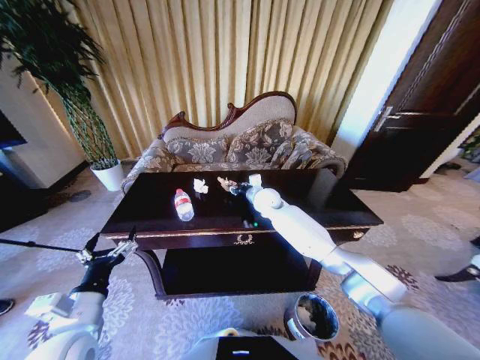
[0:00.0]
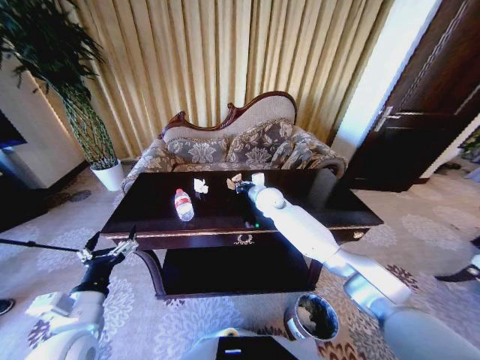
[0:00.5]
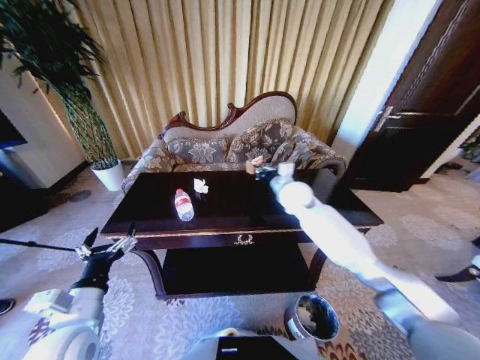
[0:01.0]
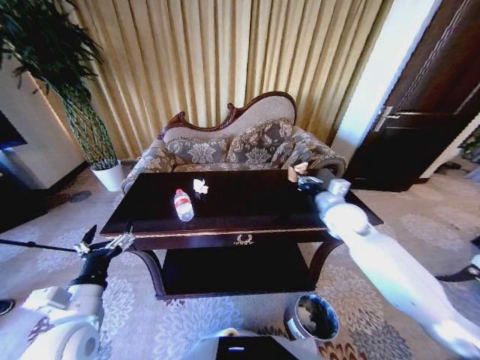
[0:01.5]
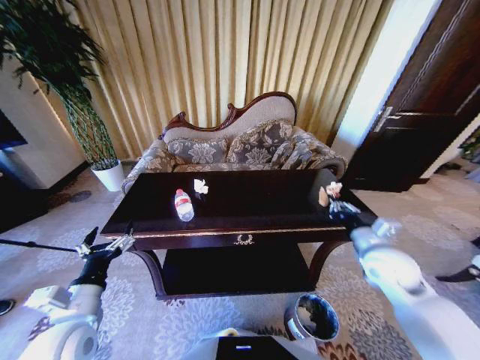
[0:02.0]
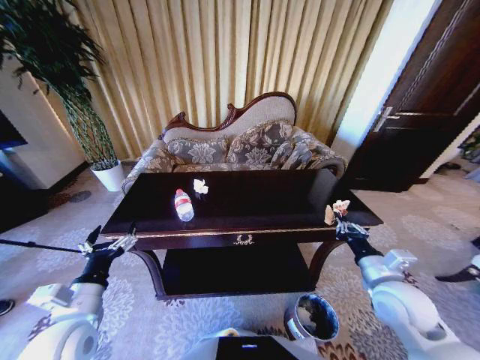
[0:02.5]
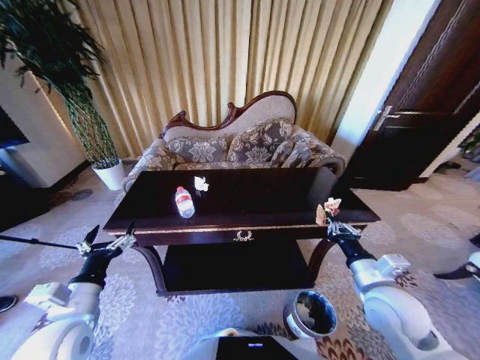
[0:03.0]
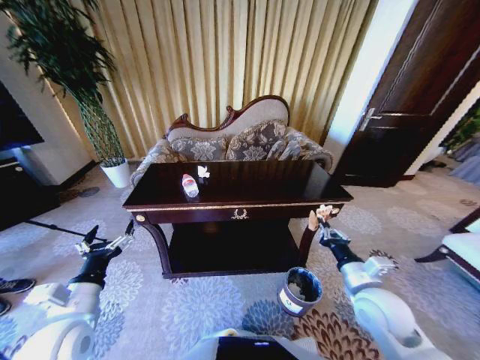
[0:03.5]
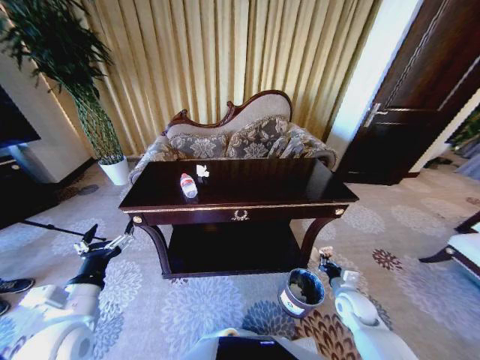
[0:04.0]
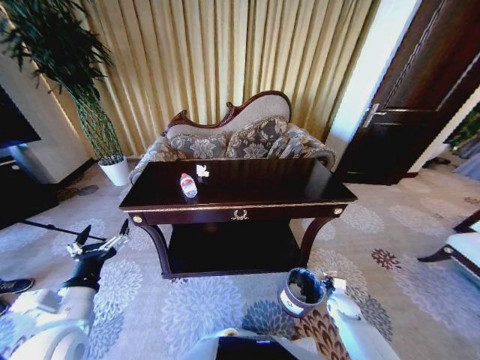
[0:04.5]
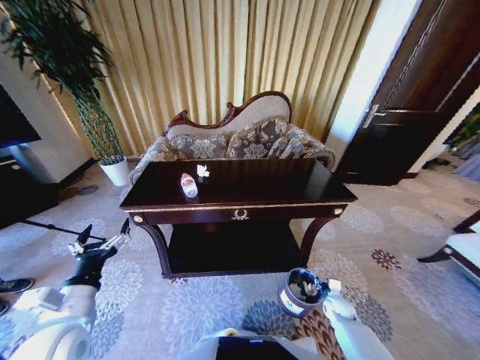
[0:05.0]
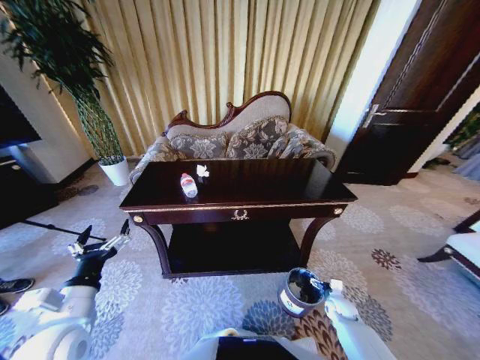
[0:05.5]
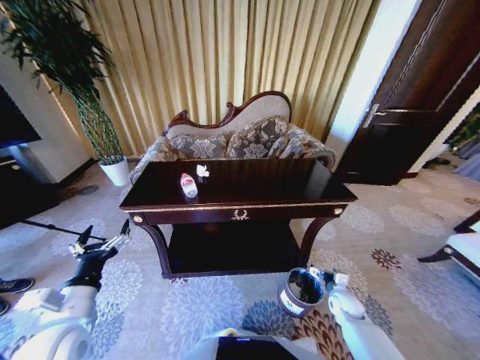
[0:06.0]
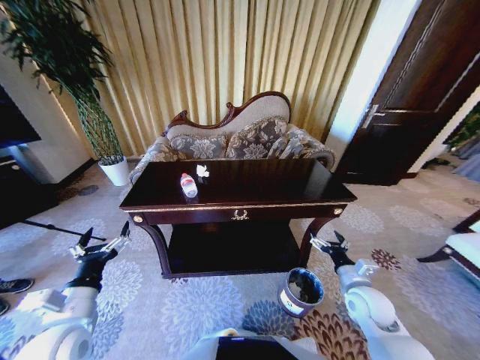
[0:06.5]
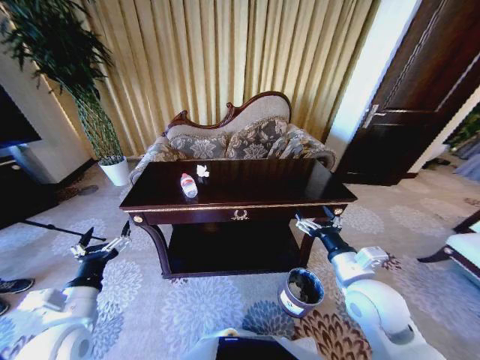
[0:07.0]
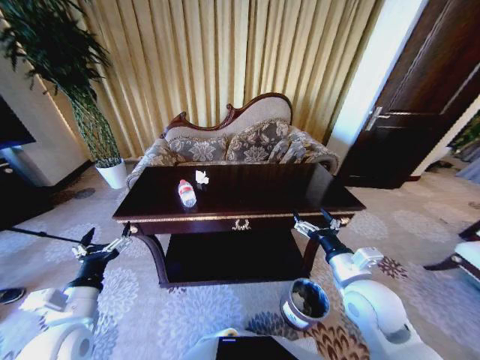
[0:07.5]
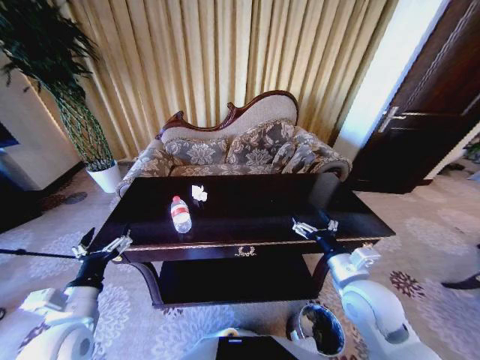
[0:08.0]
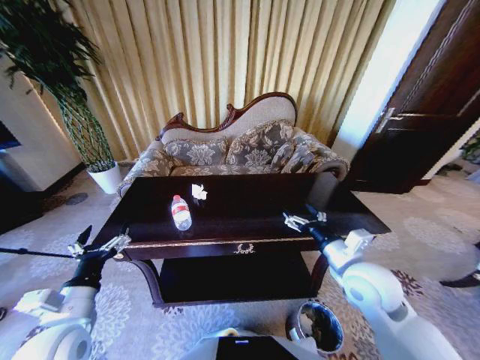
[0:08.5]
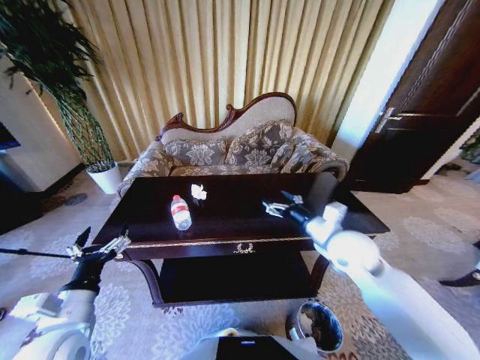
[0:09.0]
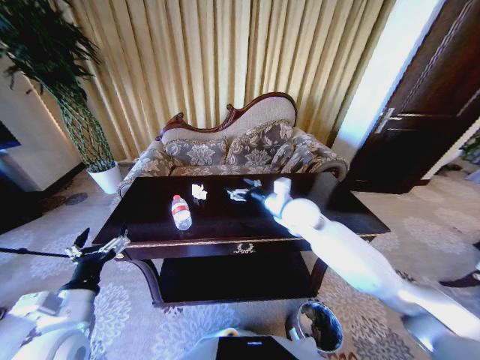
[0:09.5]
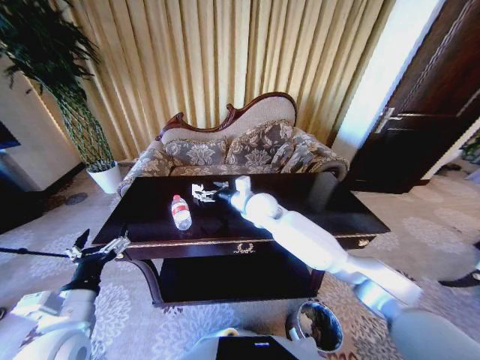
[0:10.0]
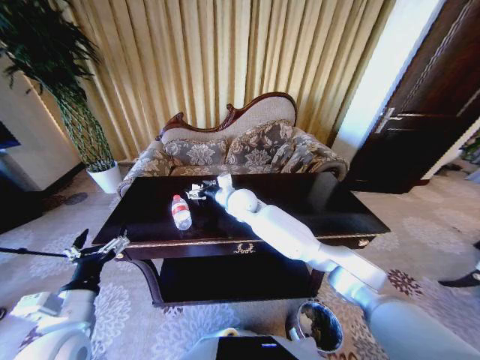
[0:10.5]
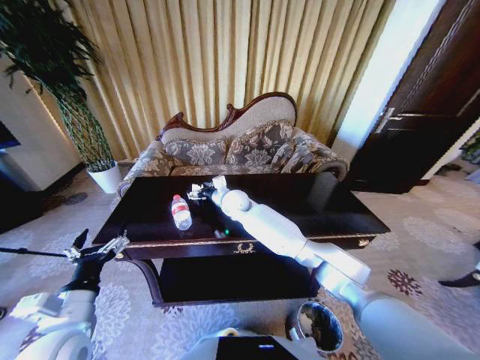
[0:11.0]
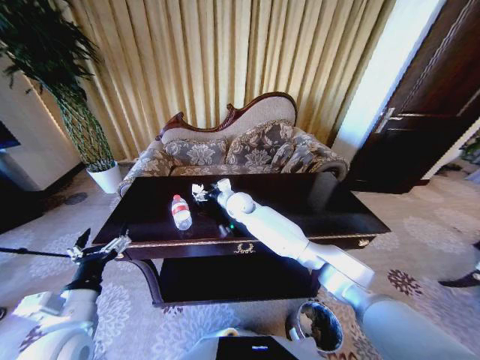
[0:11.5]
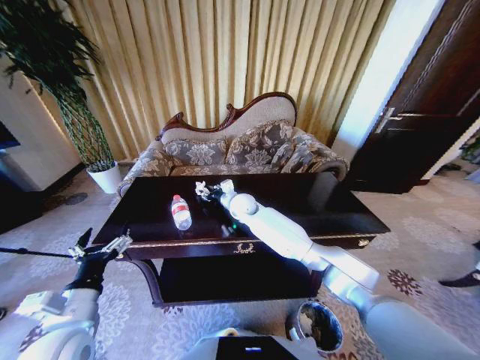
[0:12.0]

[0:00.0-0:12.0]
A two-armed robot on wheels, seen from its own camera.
Task of the whole recording: Move to the front of the table and place the trash on the table into the trash bin.
0:00.0 to 0:02.0: The right gripper moves backward and to the right, roughly 35 cm, and closes its fingers.
0:02.0 to 0:04.0: The right gripper heads downward, covering approximately 20 cm.
0:04.0 to 0:06.0: The right gripper shifts about 5 cm downward, and opens.
0:06.0 to 0:08.0: The right gripper is displaced upward and to the left by some 30 cm.
0:08.0 to 0:10.0: The right gripper heads forward and to the left, covering roughly 30 cm.
0:10.0 to 0:12.0: The right gripper shifts roughly 10 cm forward and downward, and closes.

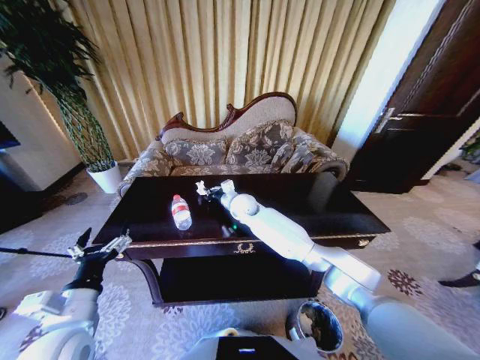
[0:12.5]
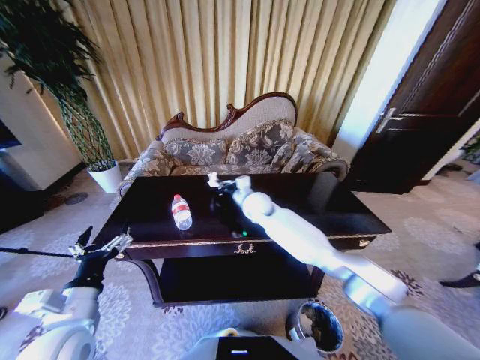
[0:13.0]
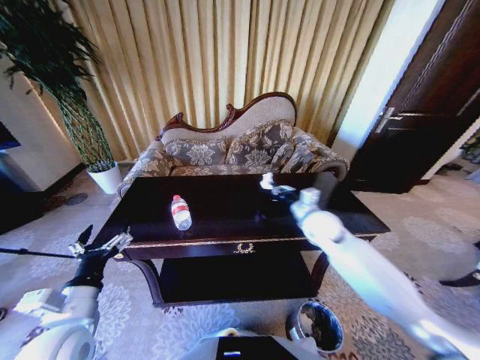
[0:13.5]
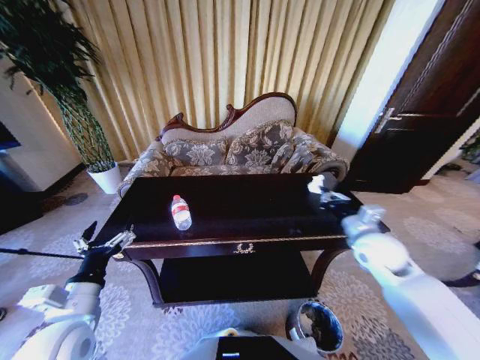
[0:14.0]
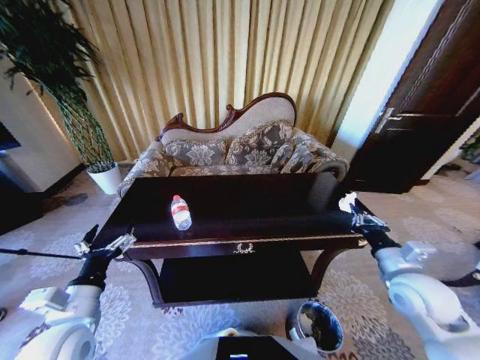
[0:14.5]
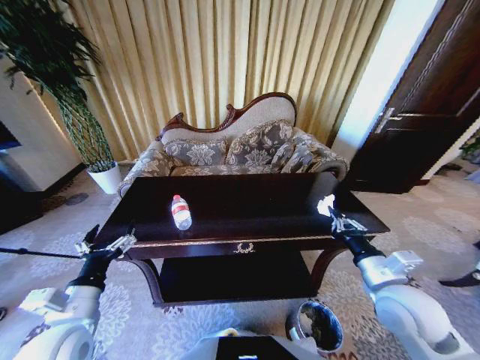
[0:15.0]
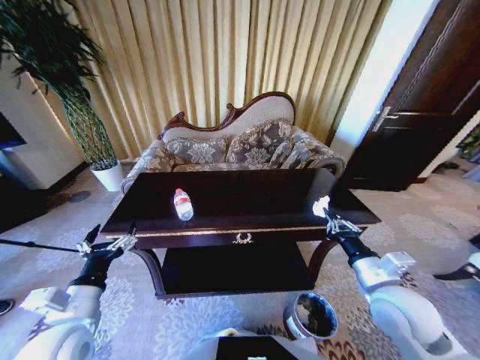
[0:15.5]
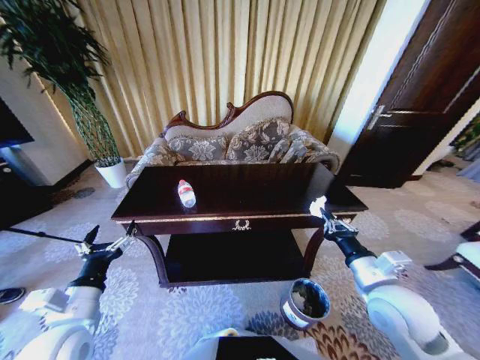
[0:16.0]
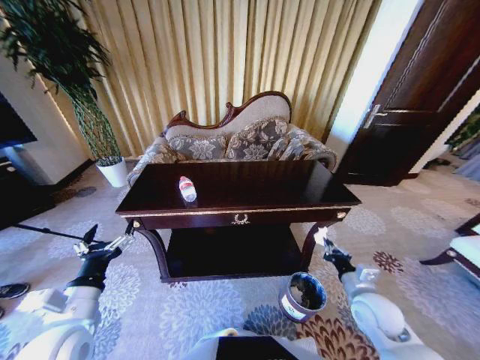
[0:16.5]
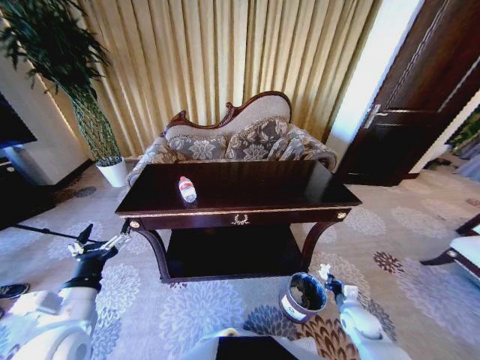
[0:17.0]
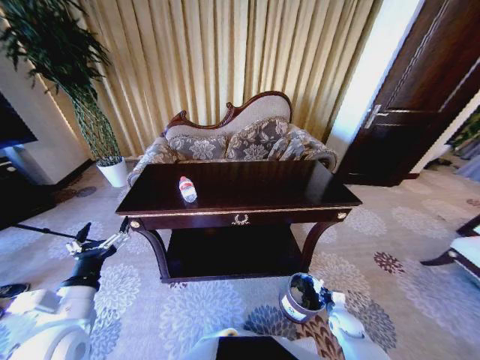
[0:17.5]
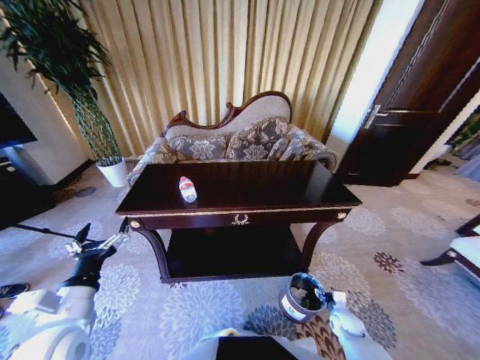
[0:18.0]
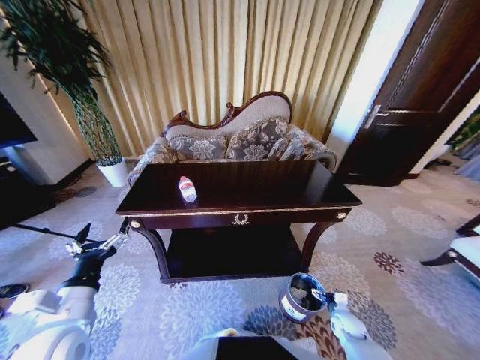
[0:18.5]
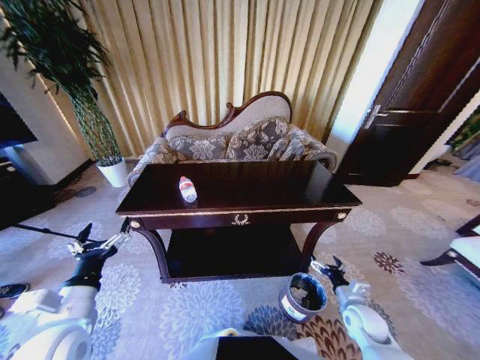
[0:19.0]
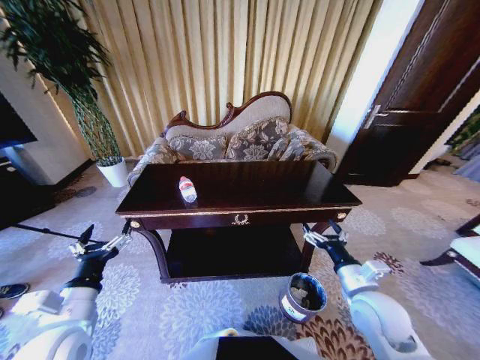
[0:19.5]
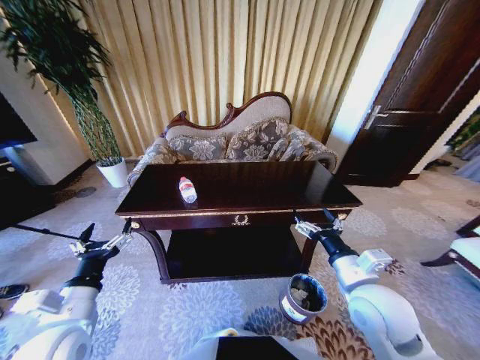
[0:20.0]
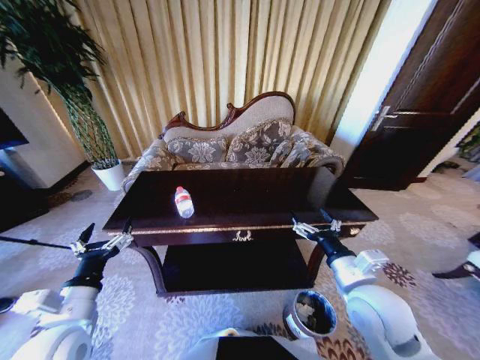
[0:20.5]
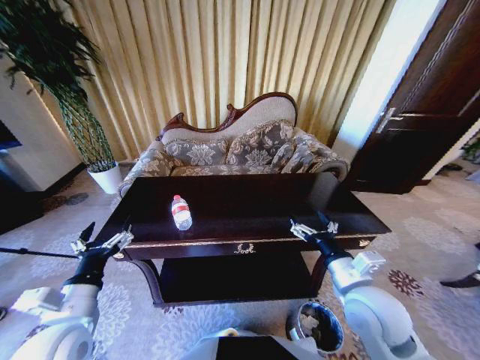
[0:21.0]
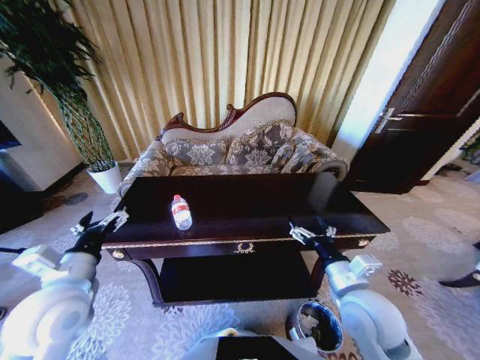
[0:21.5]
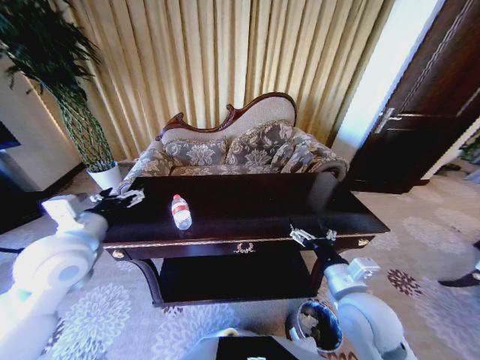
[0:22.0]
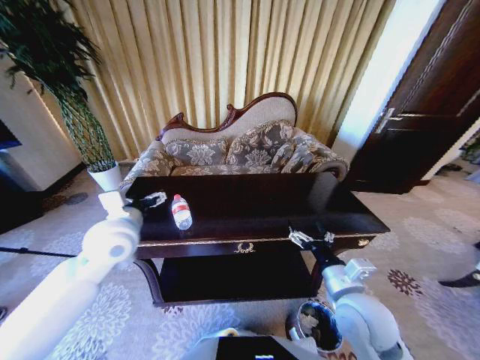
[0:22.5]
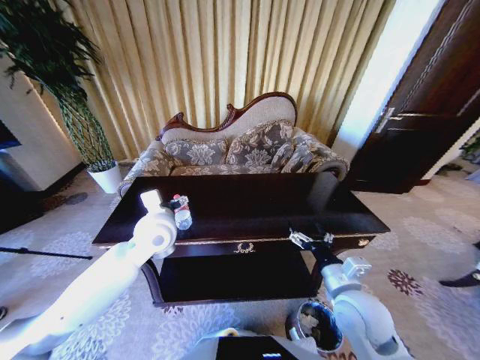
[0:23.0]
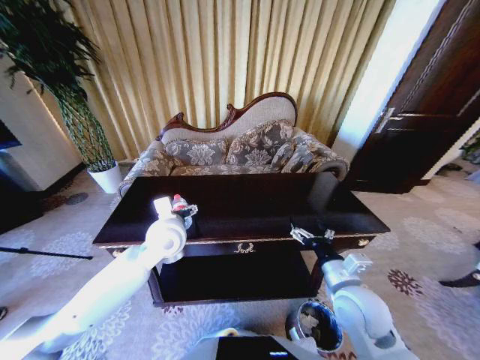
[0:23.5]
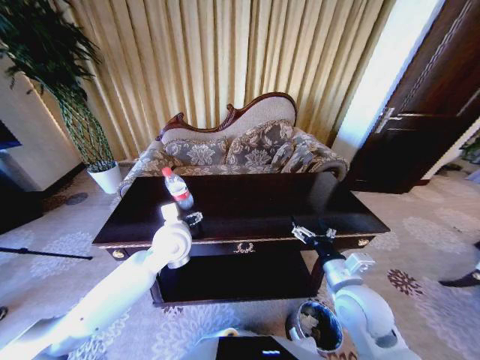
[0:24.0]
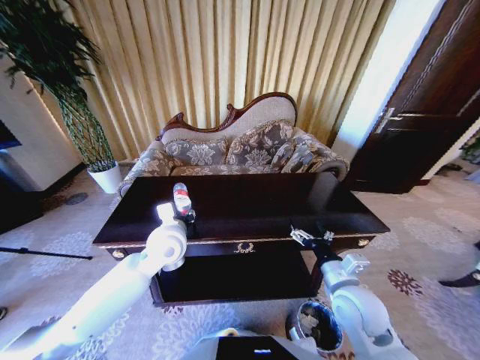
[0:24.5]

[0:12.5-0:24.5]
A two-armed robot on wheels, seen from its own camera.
Task of the whole recording: Move to the front of the table and place the trash on the table into the trash bin.
0:12.5 to 0:14.5: The right gripper moves to the right and backward, about 50 cm.
0:14.5 to 0:16.5: The right gripper is displaced downward by approximately 10 cm.
0:16.5 to 0:18.5: The right gripper travels downward by about 25 cm, and opens up.
0:18.5 to 0:20.5: The right gripper moves upward, approximately 35 cm.
0:20.5 to 0:22.5: The left gripper heads forward, covering about 20 cm.
0:22.5 to 0:24.5: The left gripper heads to the right and downward, covering roughly 10 cm, and closes.

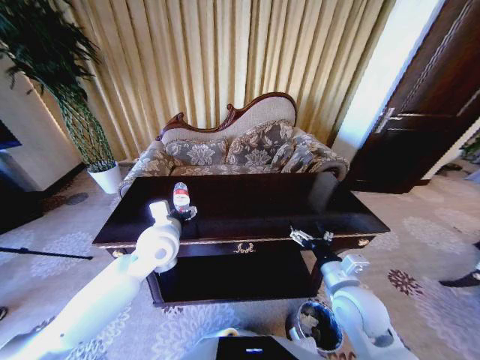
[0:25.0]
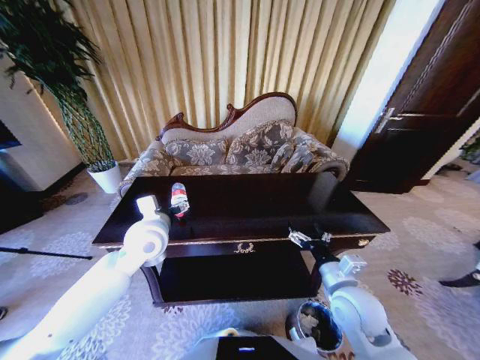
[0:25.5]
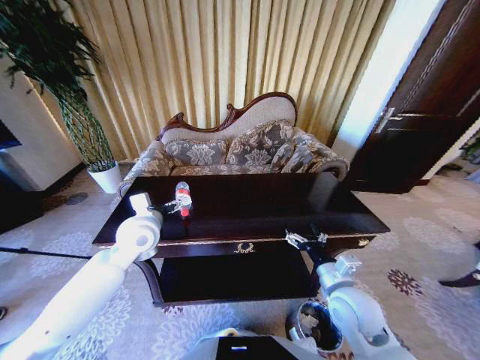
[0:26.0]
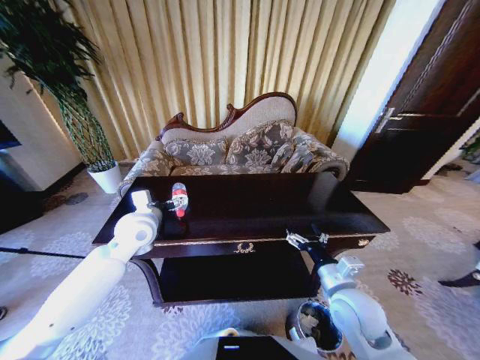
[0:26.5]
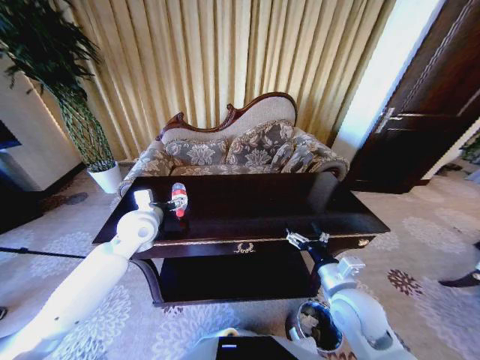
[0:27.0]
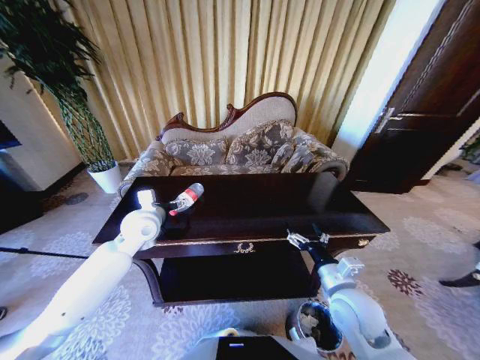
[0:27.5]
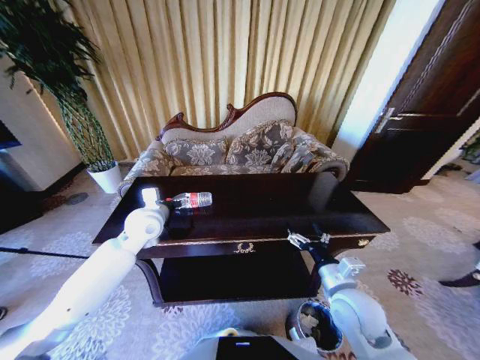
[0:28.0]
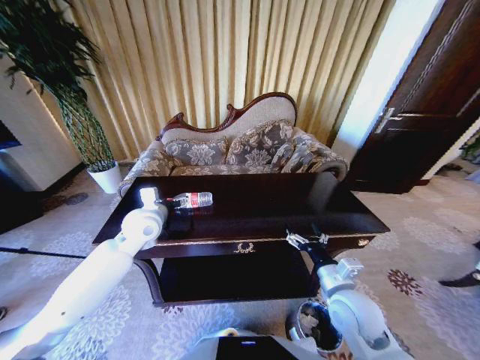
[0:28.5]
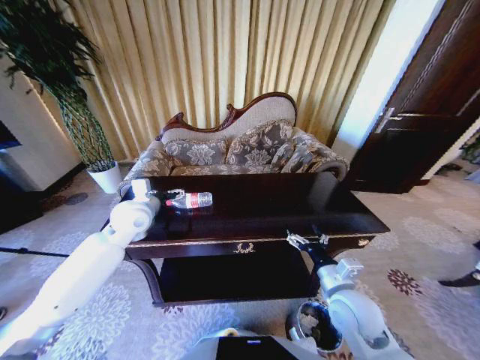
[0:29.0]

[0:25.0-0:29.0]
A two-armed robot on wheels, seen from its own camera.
Task of the whole recording: Move to the front of the table and place the trash on the table into the trash bin.
0:25.0 to 0:27.0: The left gripper shifts roughly 10 cm to the left and forward.
0:27.0 to 0:29.0: There are only small adjustments of the grippers.
